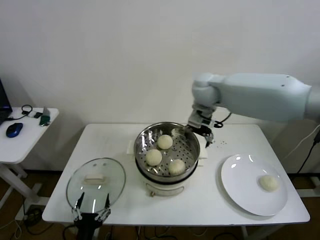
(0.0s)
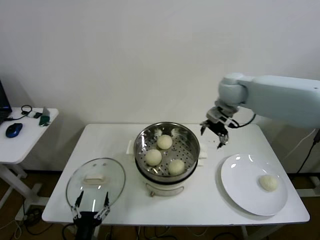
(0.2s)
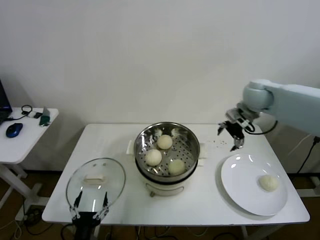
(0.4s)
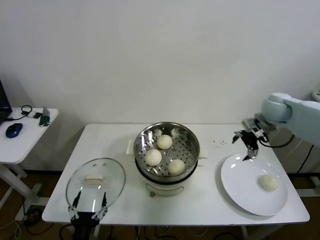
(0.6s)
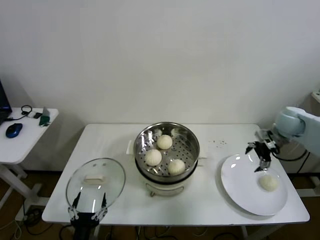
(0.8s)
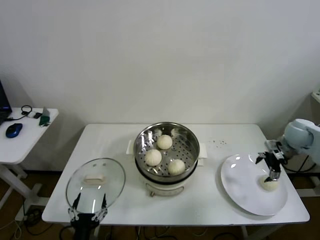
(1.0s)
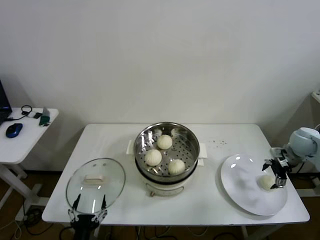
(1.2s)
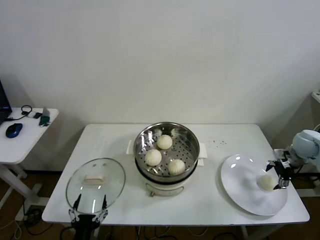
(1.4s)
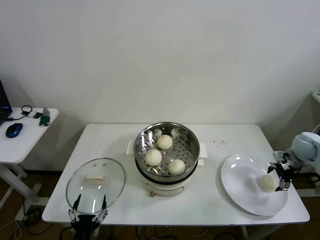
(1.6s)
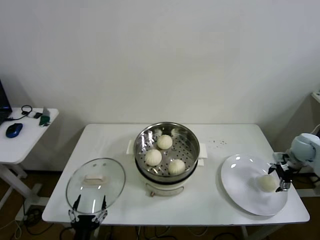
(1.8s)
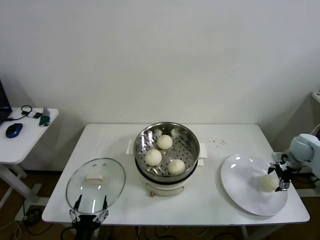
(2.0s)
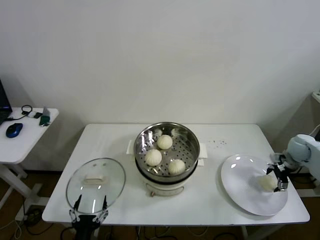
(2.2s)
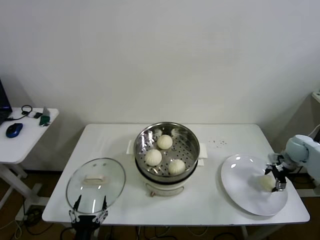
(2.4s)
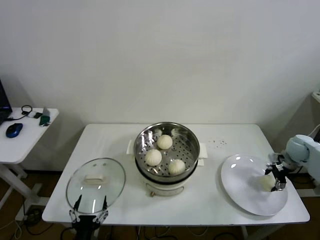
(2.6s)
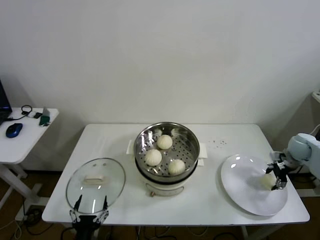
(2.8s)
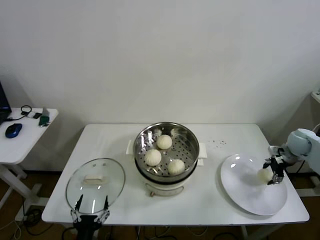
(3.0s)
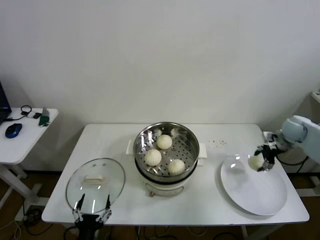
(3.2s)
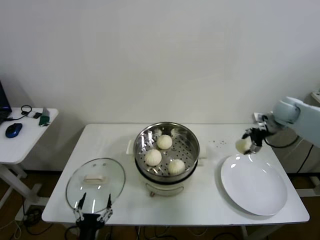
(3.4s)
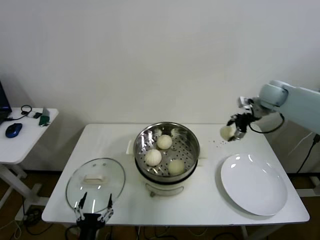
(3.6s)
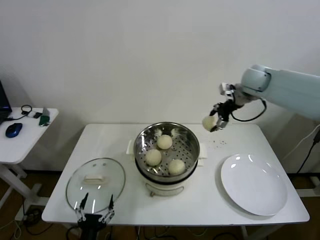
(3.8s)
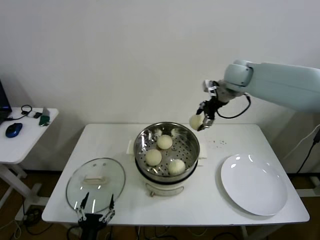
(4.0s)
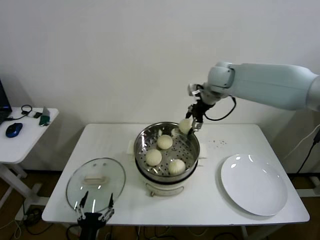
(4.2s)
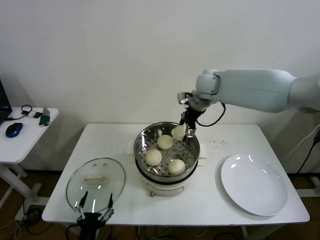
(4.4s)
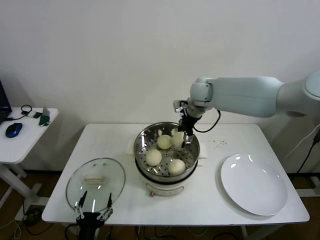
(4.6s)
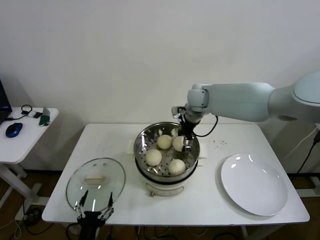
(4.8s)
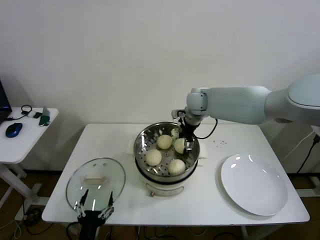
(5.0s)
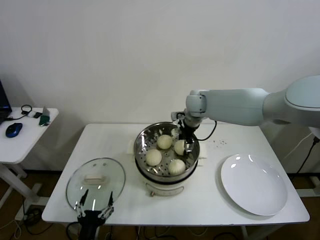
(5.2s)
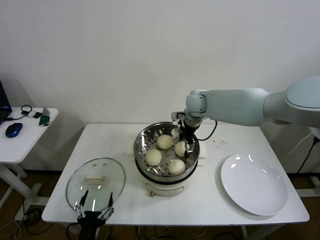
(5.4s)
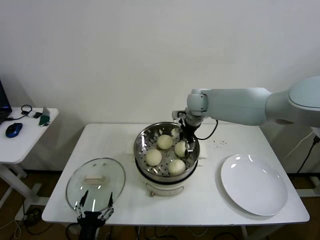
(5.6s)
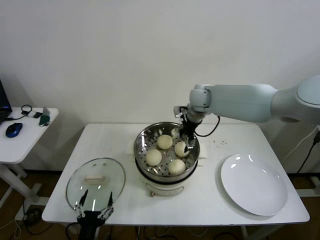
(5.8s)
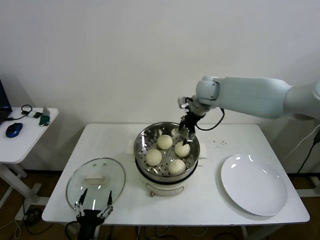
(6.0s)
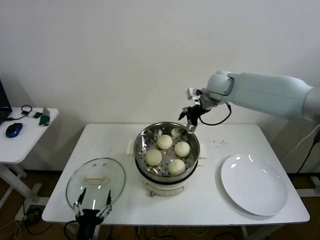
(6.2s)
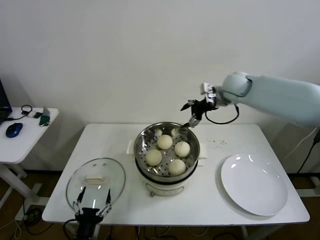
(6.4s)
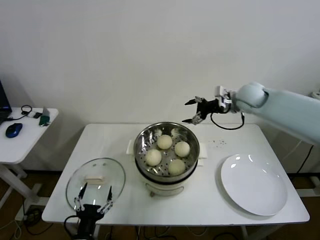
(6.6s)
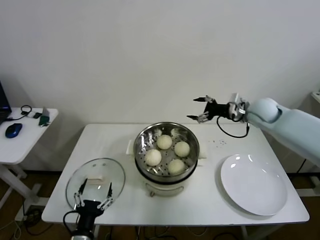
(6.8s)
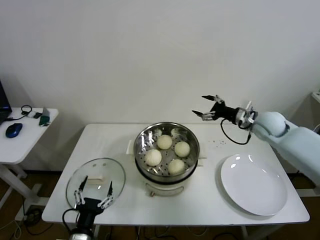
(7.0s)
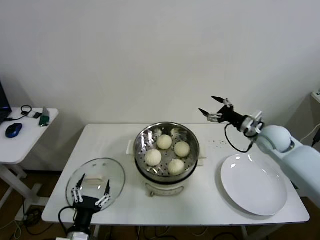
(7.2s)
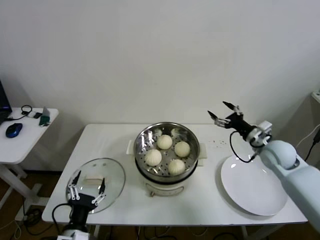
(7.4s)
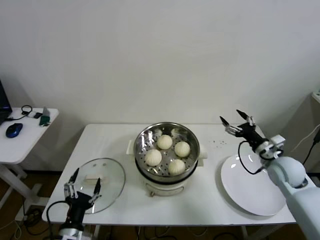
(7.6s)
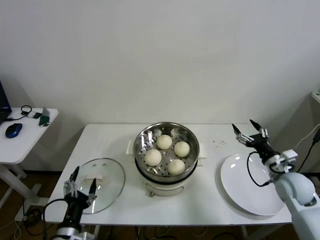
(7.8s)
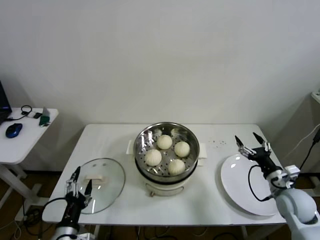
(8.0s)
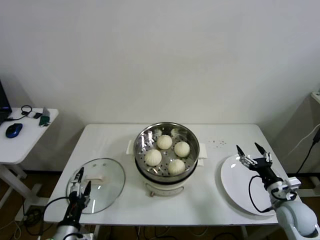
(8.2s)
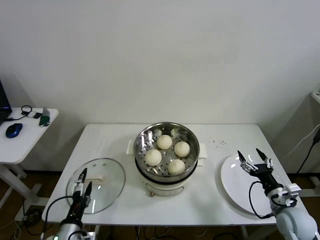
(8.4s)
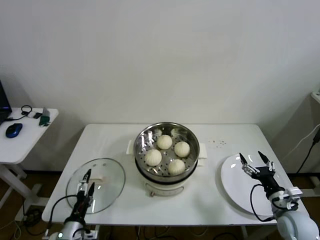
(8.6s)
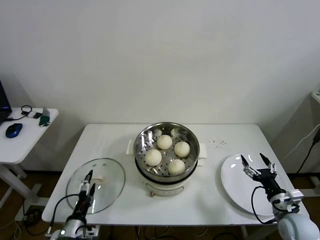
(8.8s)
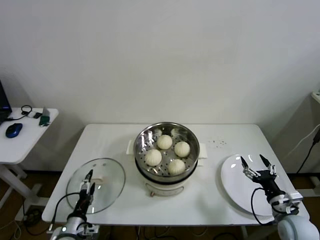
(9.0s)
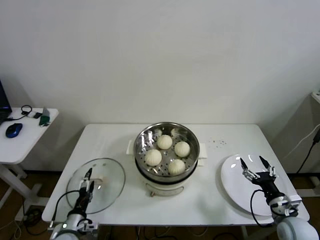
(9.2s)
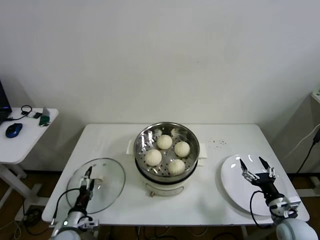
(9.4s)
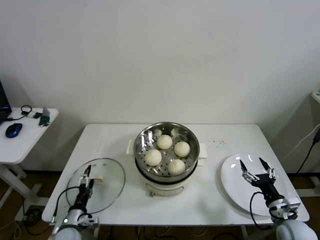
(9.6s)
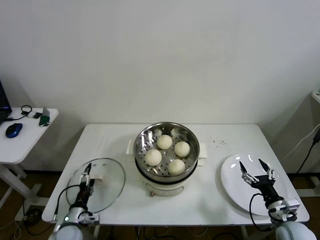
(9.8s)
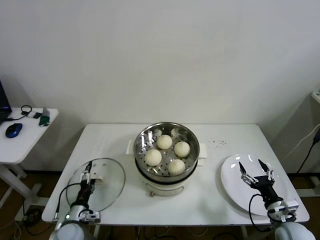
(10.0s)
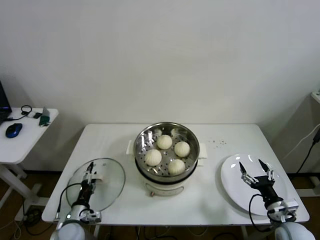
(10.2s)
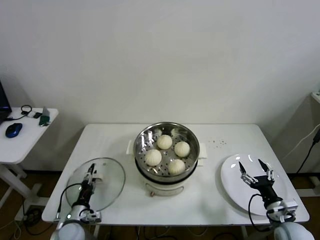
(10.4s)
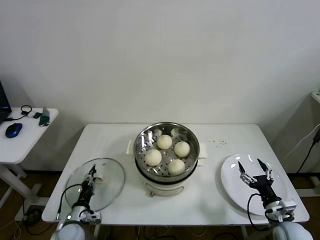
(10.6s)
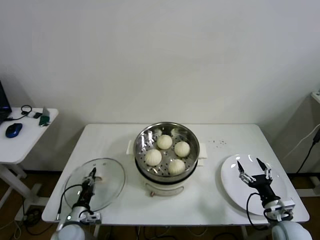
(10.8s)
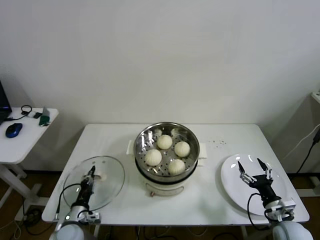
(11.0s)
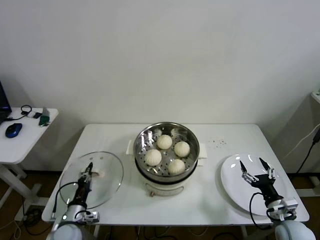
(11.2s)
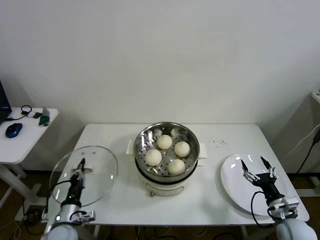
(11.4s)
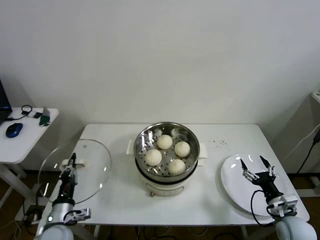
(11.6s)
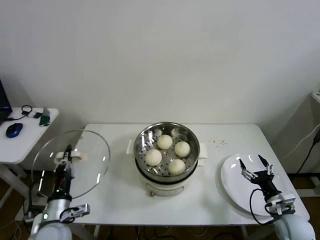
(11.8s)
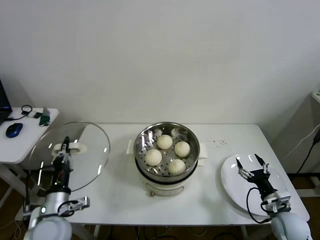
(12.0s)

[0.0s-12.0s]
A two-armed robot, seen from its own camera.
Step, 0.0s to 2.6s: Grasp the baozi in the plate with right gripper.
Step, 2.8s to 5.4s: Place the baozi on the steamer with right gripper.
Step, 5.8s to 10.8s: Grasp the pot lid with left gripper.
0.0s to 1.6s: The right gripper shifts about 40 cm to the right and downward.
1.6s to 3.0s: The right gripper closes.
3.0s to 4.4s: The right gripper heads to the left and upward, covering some 40 cm.
4.4s to 6.0s: The right gripper opens up.
6.0s to 7.6s: The right gripper travels to the right, backward and downward by approximately 35 cm. The left gripper shifts by about 5 cm.
7.6s to 9.0s: The left gripper is displaced downward and forward by about 10 cm; the right gripper is displaced backward and downward by some 20 cm.
9.0s to 10.4s: The left gripper shifts about 5 cm forward.
10.4s to 12.0s: The left gripper is displaced upward by about 15 cm, and closes.

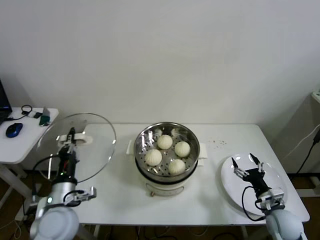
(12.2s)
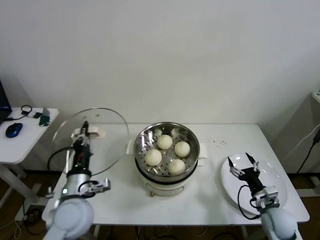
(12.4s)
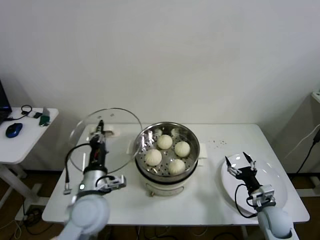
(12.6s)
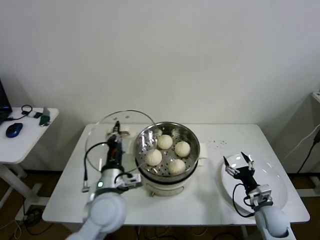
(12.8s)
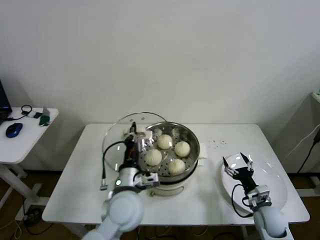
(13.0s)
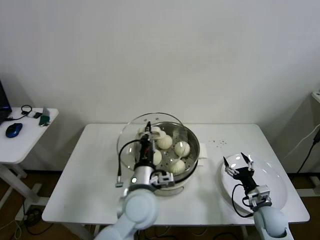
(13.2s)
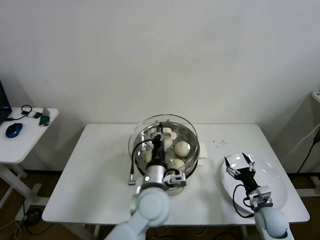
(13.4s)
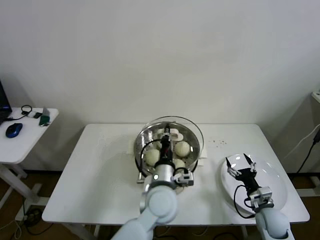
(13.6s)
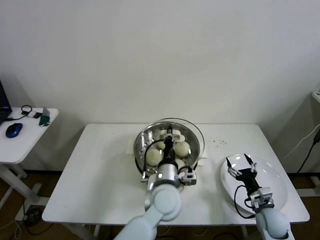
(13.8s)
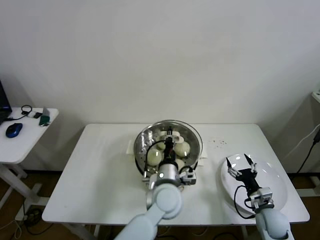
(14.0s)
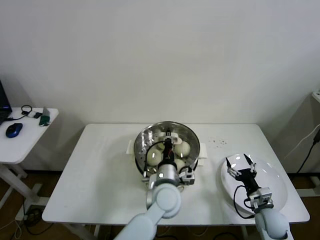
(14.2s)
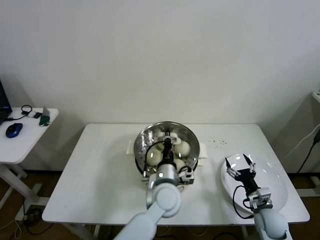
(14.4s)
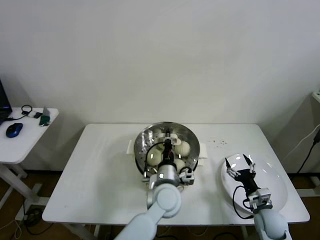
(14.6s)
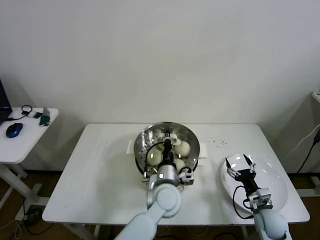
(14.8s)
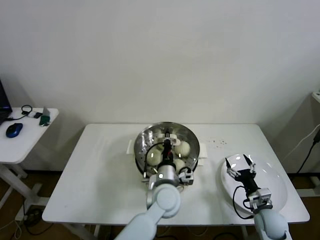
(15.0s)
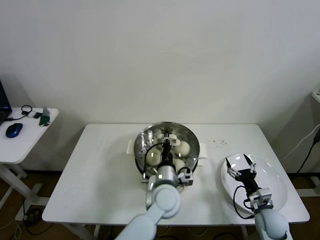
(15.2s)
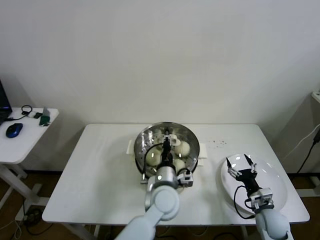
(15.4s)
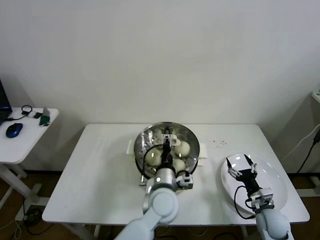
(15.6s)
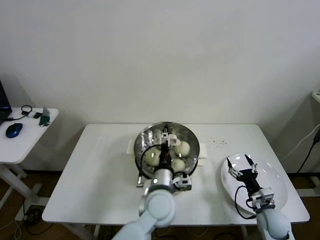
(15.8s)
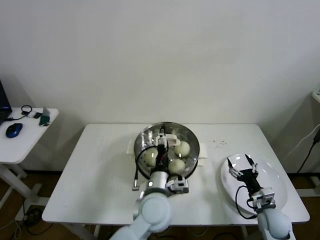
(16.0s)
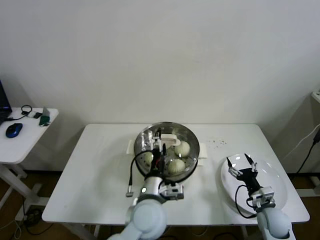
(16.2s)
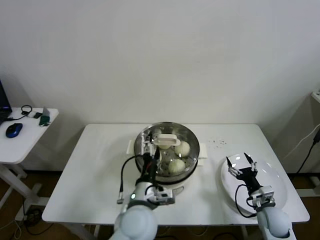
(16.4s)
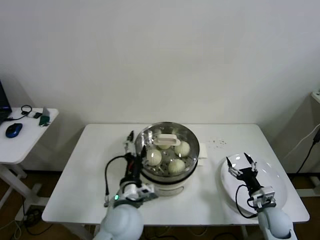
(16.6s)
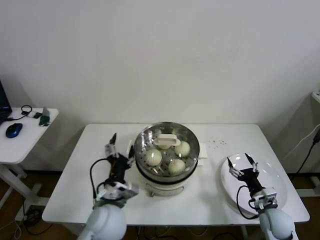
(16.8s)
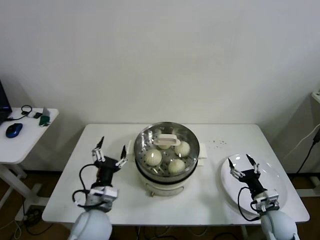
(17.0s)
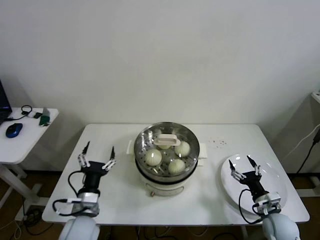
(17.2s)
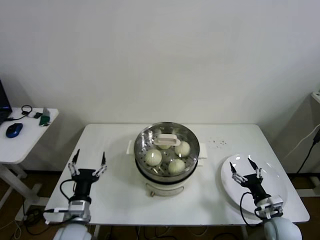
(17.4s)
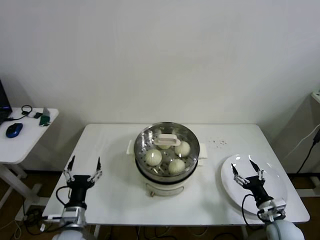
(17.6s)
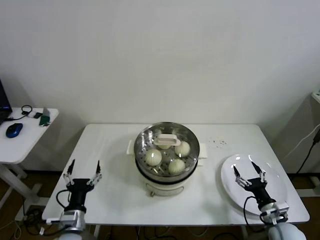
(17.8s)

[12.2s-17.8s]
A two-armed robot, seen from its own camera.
Step, 12.2s to 15.2s: Place the pot lid on the steamer with left gripper.
12.2s to 13.6s: The left gripper goes approximately 25 cm to the right.
13.6s to 15.0s: The left gripper moves some 5 cm.
15.0s to 16.4s: The left gripper heads backward and to the left, covering about 10 cm, and opens its fingers.
16.4s to 17.8s: The right gripper shifts by some 5 cm. The left gripper is displaced to the left and downward by some 25 cm.

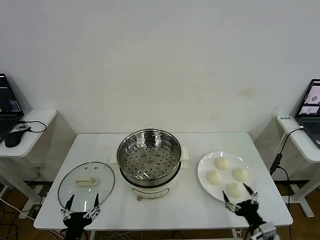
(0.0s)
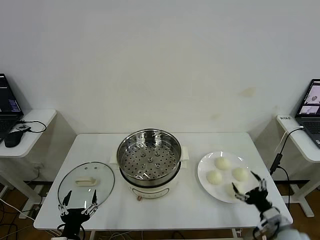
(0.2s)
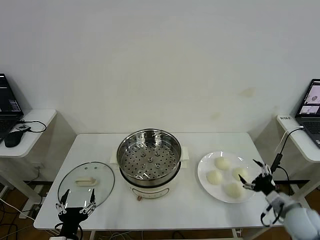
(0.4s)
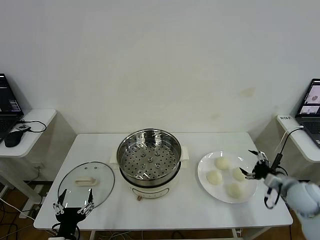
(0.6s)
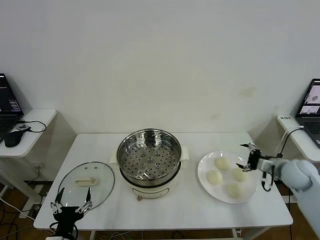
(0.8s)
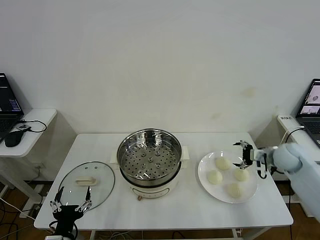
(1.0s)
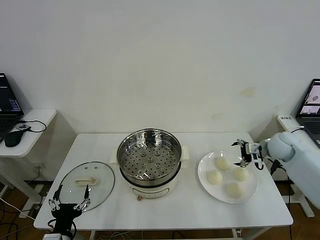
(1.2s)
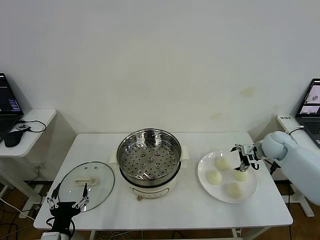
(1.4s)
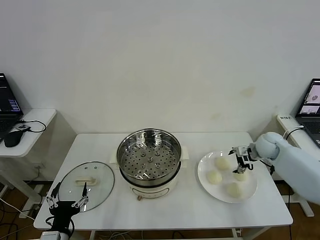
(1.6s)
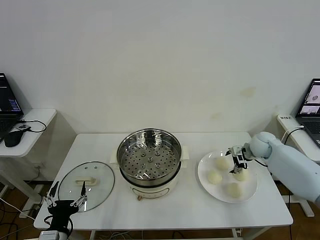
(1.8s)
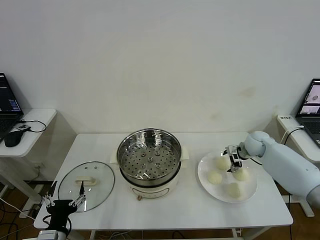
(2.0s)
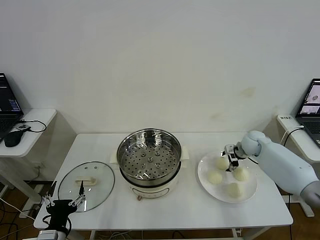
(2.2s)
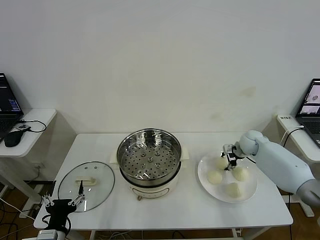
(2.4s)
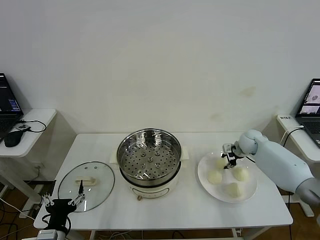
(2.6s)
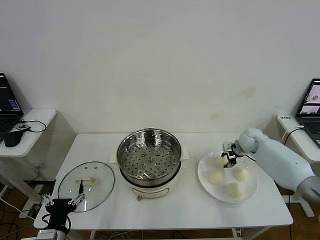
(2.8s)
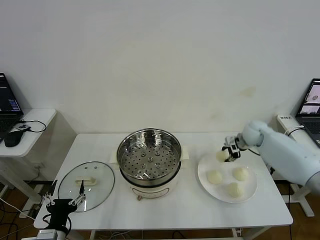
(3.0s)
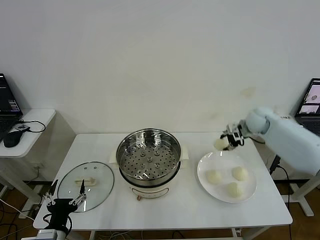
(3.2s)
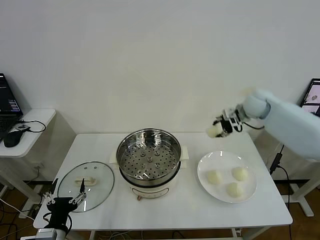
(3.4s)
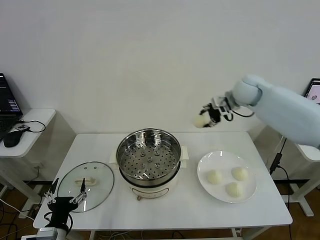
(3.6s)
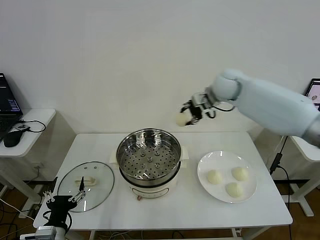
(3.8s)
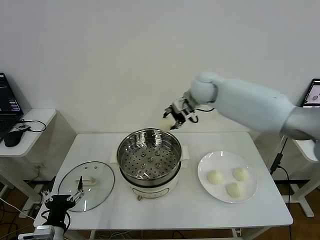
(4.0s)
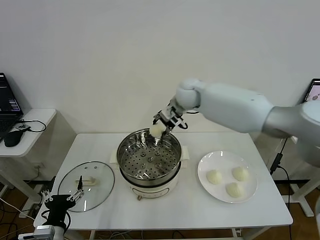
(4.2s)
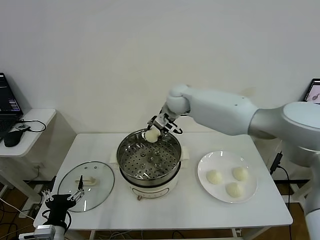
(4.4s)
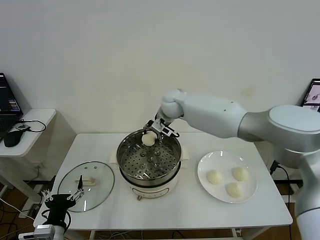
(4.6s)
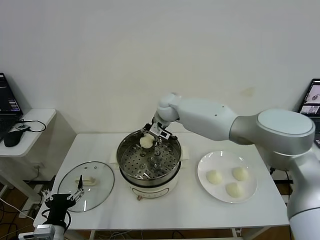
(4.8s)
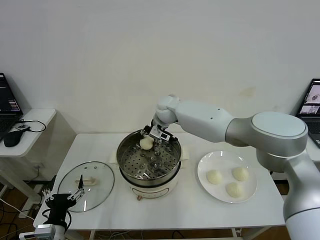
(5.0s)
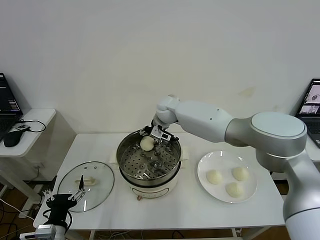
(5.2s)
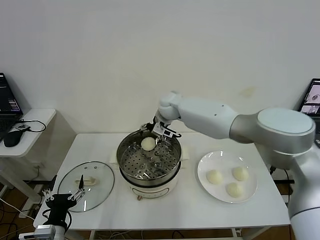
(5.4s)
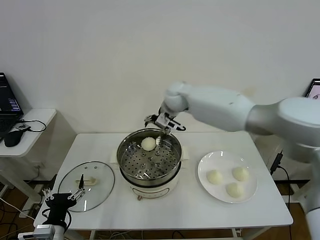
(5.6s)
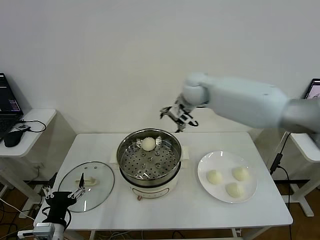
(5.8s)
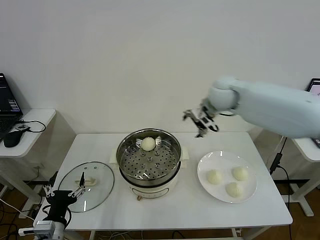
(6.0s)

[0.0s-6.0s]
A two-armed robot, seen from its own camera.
Step, 0.0s to 2.6s: Grasp the baozi in the plate with right gripper.
Step, 2.8s to 5.2s: Place the baozi on the steamer with right gripper.
1.6s to 3.0s: The right gripper travels upward by approximately 5 cm, and closes its fingers.
3.0s to 4.4s: The right gripper shifts roughly 30 cm to the left.
4.4s to 6.0s: The right gripper heads to the right, covering approximately 20 cm, and opens.
